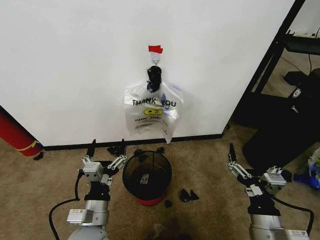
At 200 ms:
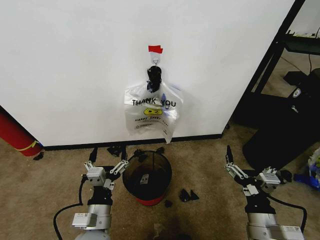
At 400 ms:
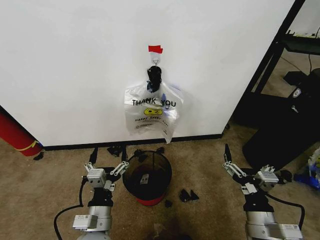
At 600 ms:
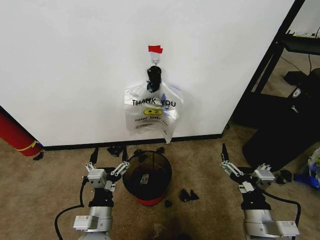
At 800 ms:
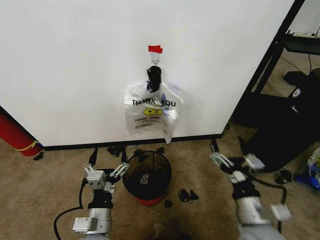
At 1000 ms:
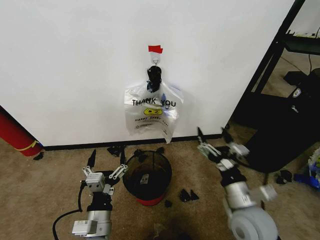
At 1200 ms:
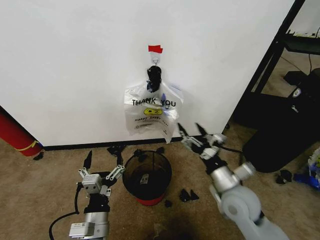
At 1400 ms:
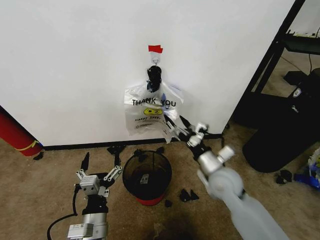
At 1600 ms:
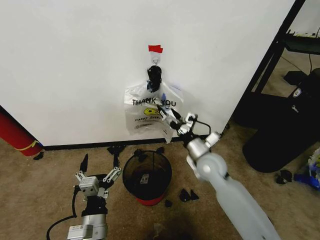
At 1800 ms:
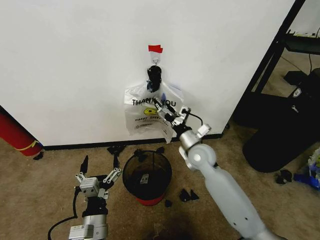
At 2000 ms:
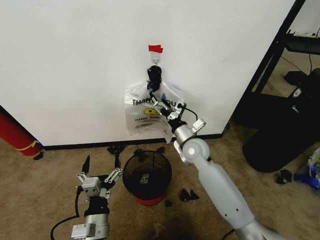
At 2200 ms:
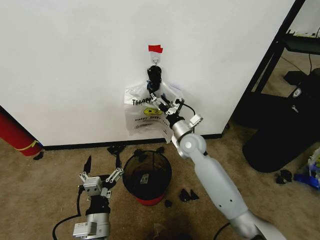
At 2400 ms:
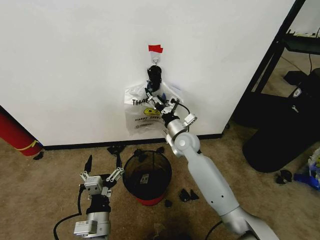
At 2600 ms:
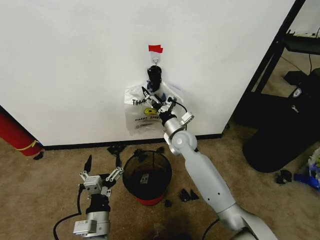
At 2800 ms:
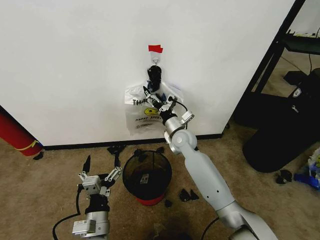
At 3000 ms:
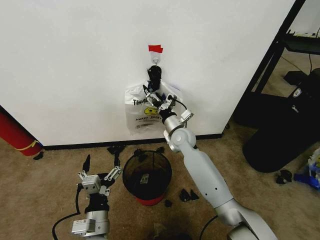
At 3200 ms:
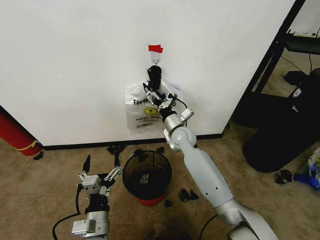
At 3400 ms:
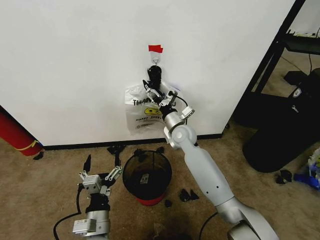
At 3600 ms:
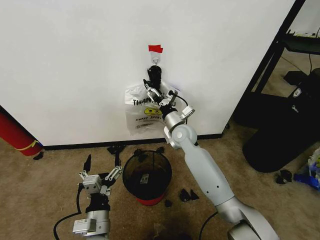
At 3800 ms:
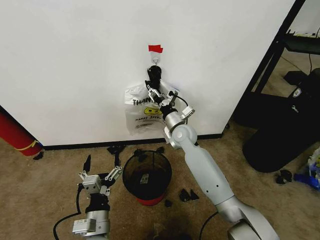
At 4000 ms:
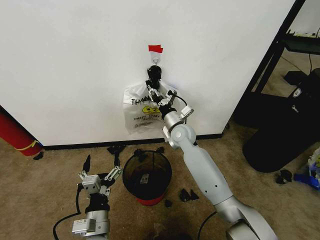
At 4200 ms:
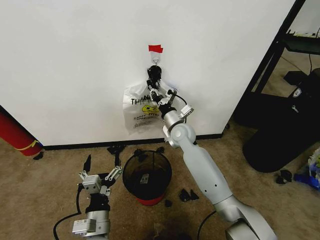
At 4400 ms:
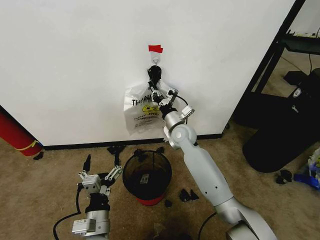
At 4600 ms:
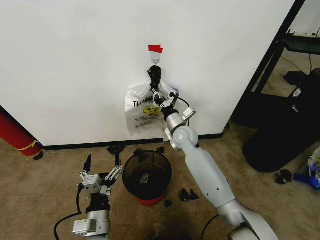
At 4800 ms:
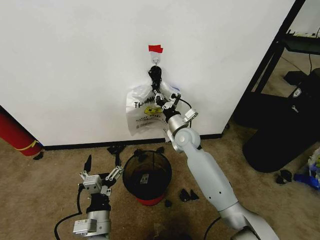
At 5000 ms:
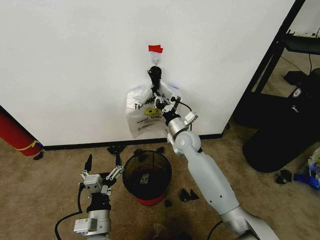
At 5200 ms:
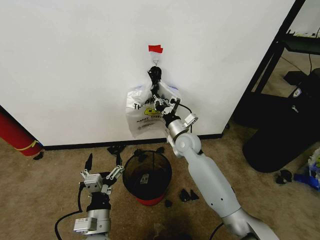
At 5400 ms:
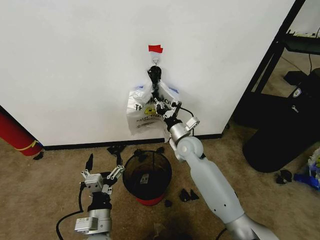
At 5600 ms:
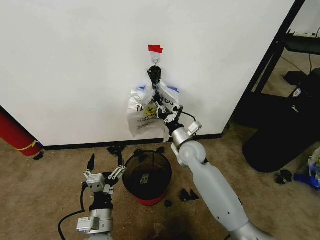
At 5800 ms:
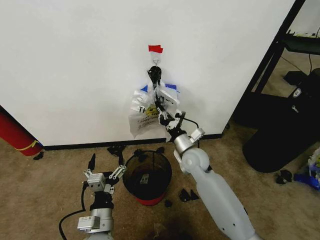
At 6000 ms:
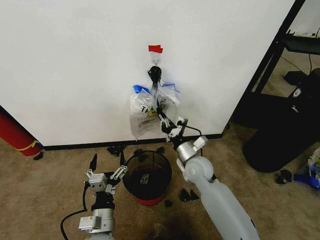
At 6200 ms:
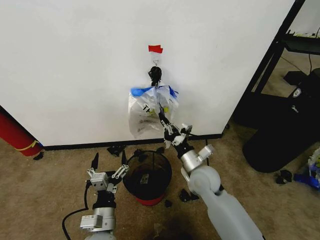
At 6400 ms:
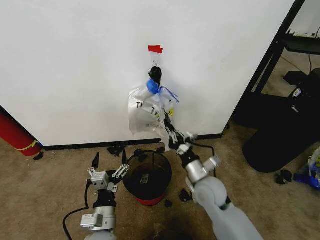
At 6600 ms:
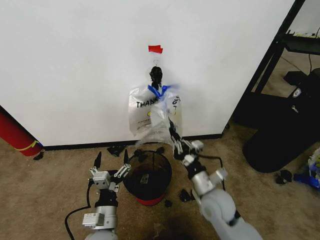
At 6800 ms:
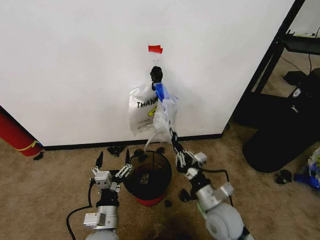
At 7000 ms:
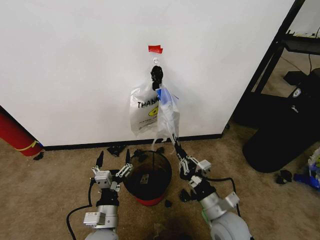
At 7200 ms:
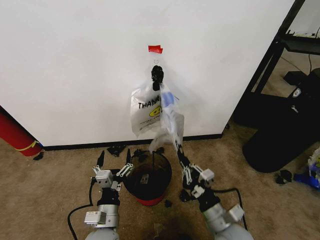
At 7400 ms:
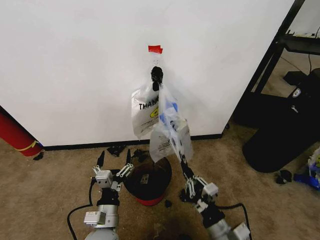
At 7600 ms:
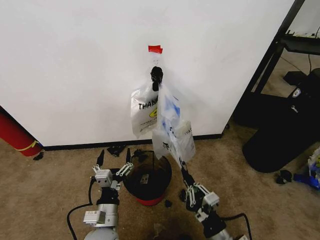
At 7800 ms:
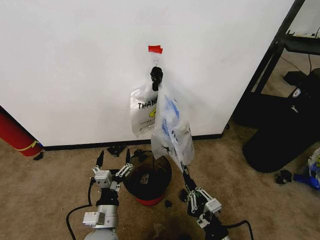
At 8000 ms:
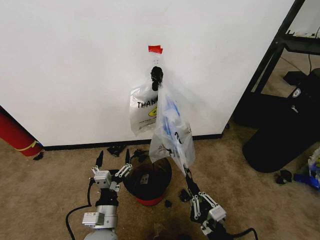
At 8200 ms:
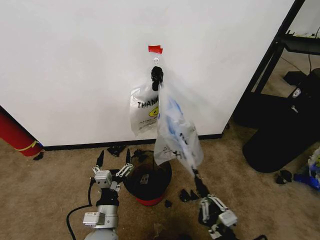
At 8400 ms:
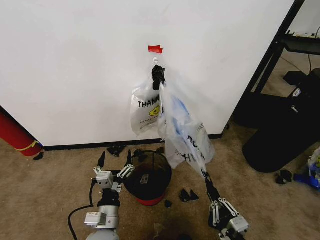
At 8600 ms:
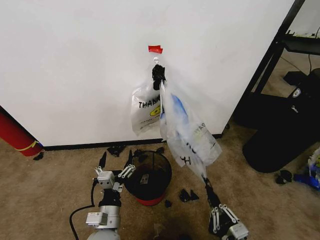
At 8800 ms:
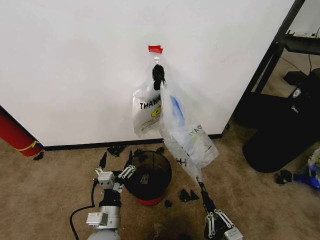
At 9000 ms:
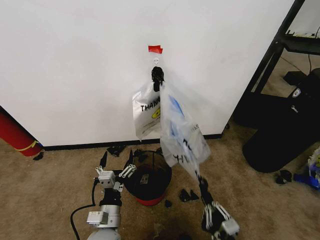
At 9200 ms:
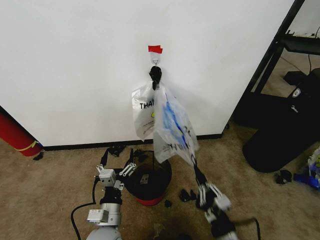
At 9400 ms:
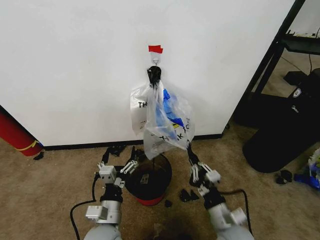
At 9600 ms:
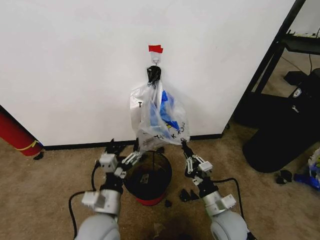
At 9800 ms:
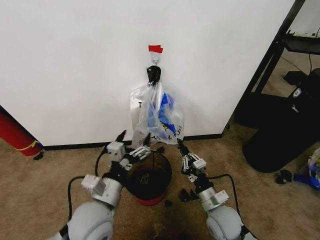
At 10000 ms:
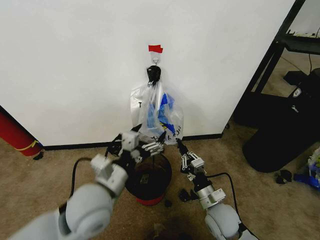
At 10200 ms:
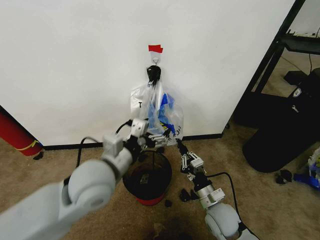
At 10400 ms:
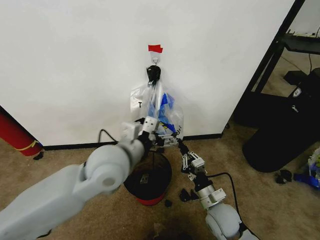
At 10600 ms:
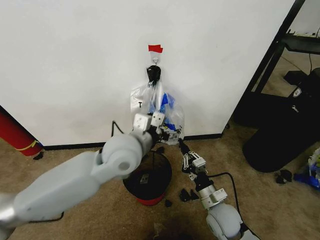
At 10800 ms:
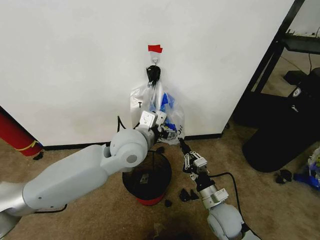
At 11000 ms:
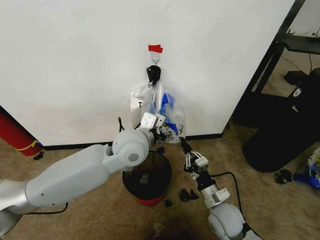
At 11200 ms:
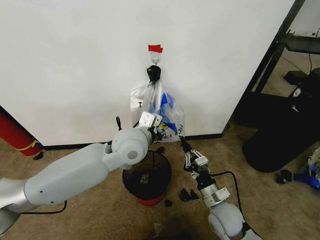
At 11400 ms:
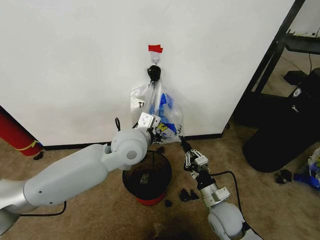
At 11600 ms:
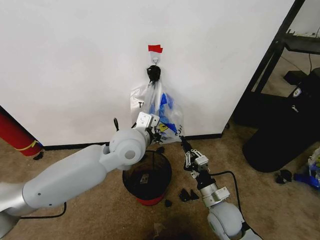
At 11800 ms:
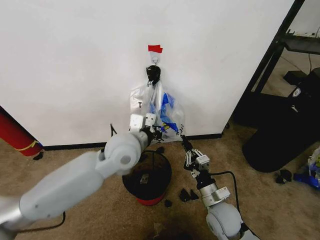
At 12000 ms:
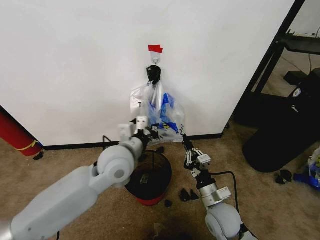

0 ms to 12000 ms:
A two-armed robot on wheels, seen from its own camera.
Task of the whole recording: Pick up the garbage bag from the wall and place it over the trash bin.
1600 ms to 3000 ms: The right gripper goes roughly 15 cm forward and to the left.
3000 ms to 4400 ms: The right gripper closes its fingers.
4400 ms to 6000 ms: The right gripper is displaced backward and downward by about 15 cm.
6000 ms to 7600 ms: The right gripper heads backward, covering some 25 cm.
7600 ms to 9000 ms: The right gripper goes approximately 5 cm backward.
9000 ms to 10400 ms: The left gripper heads upward and forward, covering some 25 cm, while the right gripper shifts roughly 20 cm forward.
10400 ms to 12000 ms: The left gripper changes place by approximately 5 cm, and closes up.

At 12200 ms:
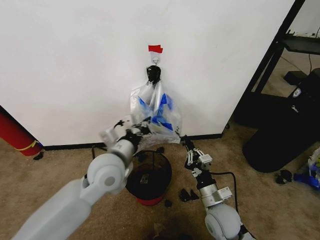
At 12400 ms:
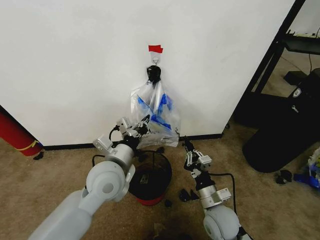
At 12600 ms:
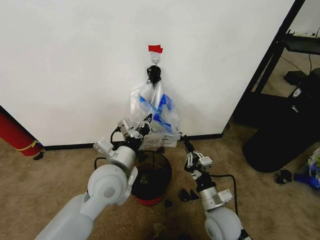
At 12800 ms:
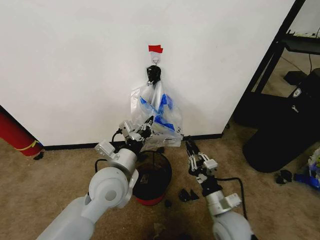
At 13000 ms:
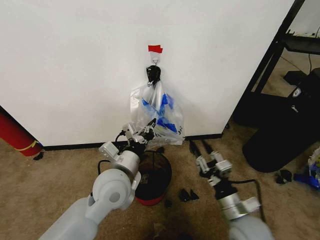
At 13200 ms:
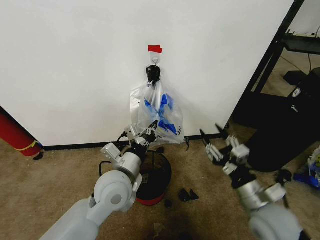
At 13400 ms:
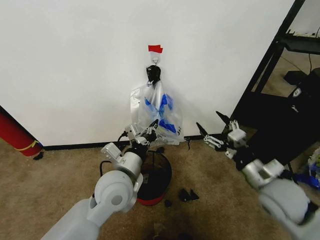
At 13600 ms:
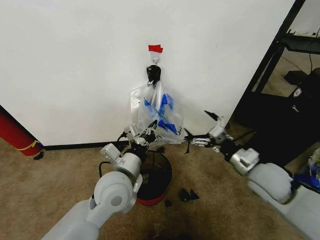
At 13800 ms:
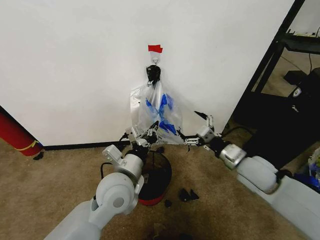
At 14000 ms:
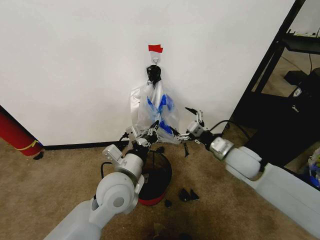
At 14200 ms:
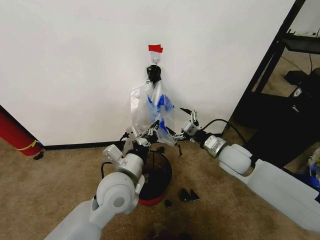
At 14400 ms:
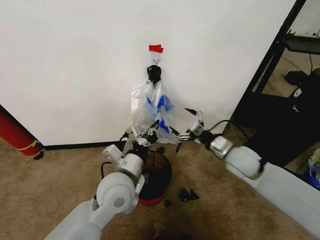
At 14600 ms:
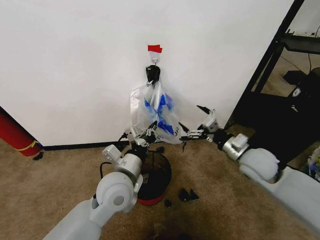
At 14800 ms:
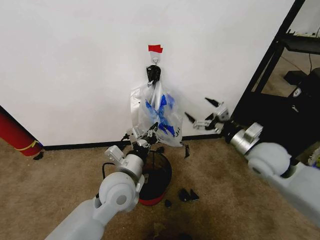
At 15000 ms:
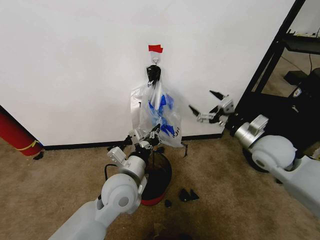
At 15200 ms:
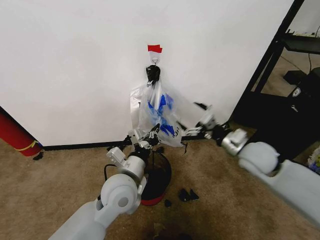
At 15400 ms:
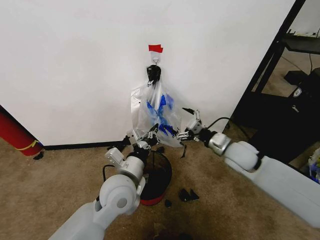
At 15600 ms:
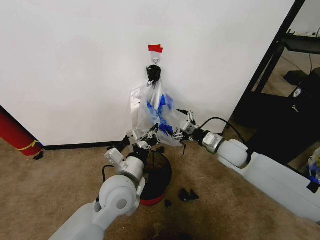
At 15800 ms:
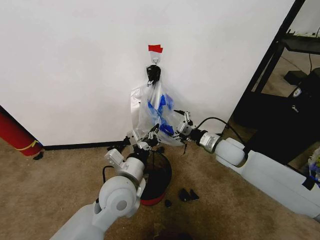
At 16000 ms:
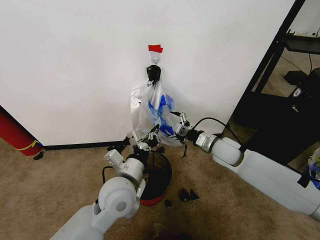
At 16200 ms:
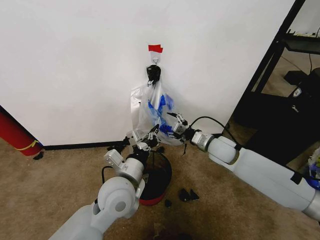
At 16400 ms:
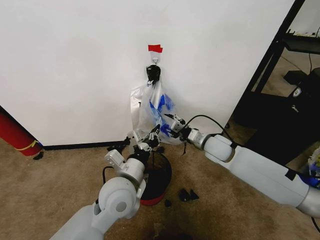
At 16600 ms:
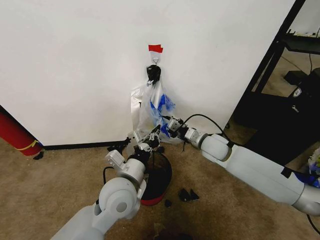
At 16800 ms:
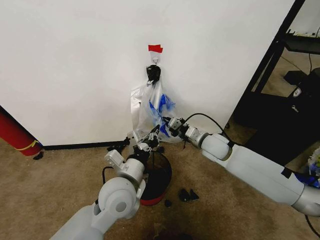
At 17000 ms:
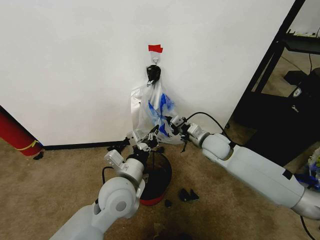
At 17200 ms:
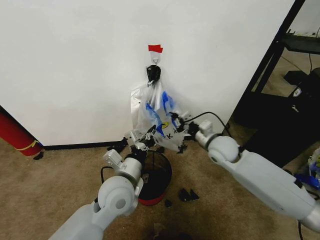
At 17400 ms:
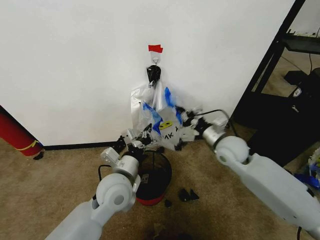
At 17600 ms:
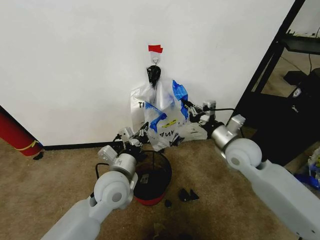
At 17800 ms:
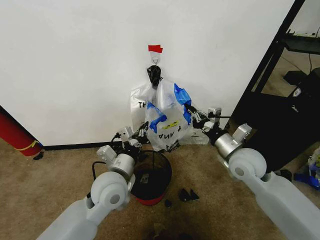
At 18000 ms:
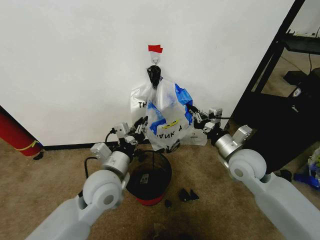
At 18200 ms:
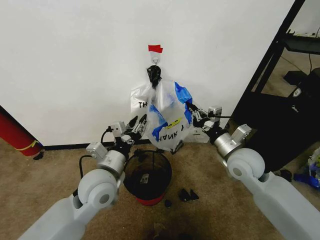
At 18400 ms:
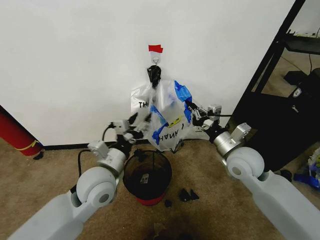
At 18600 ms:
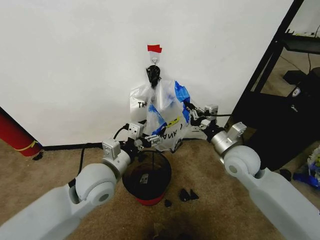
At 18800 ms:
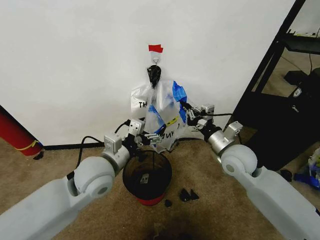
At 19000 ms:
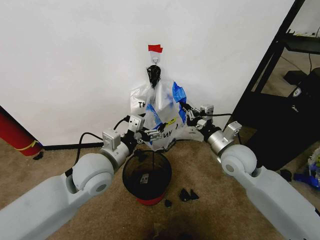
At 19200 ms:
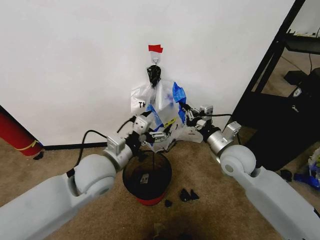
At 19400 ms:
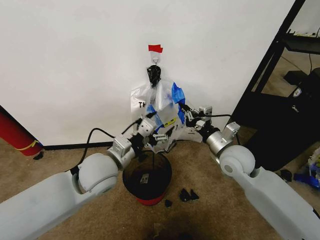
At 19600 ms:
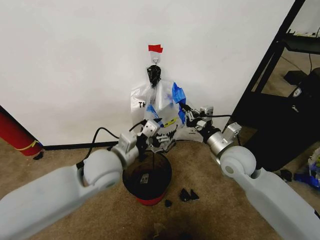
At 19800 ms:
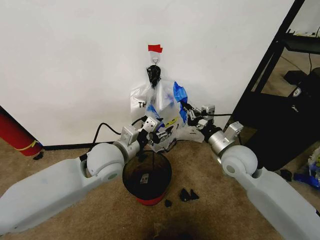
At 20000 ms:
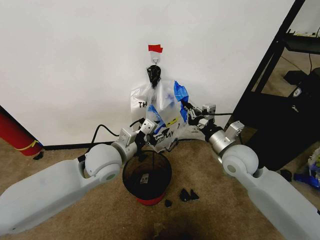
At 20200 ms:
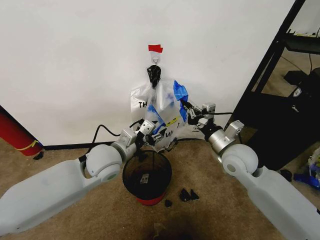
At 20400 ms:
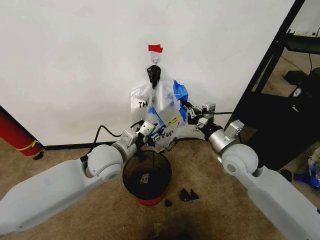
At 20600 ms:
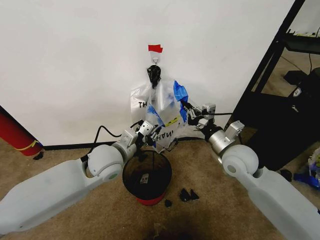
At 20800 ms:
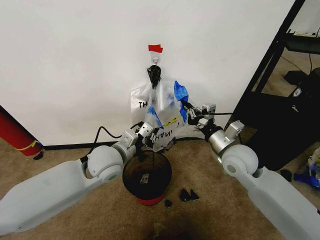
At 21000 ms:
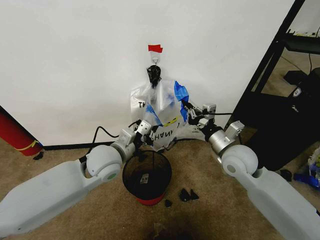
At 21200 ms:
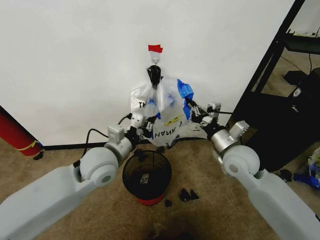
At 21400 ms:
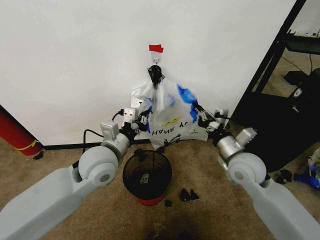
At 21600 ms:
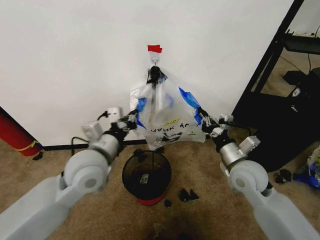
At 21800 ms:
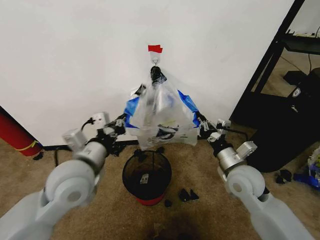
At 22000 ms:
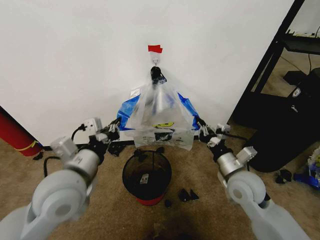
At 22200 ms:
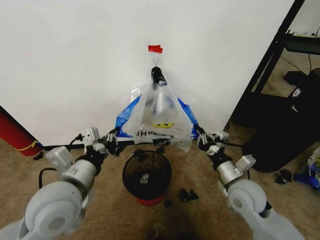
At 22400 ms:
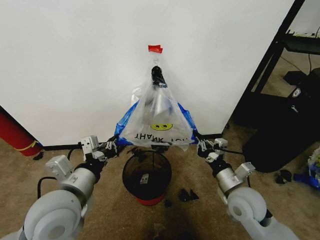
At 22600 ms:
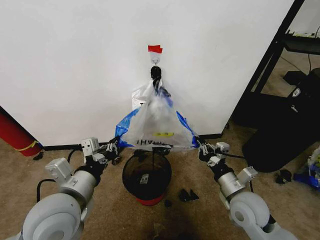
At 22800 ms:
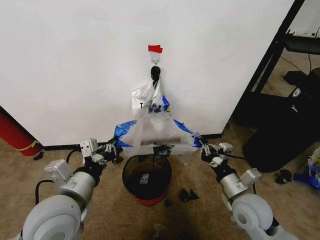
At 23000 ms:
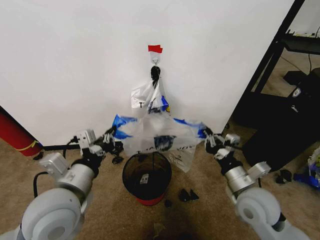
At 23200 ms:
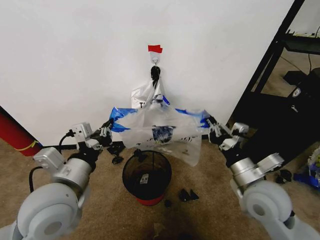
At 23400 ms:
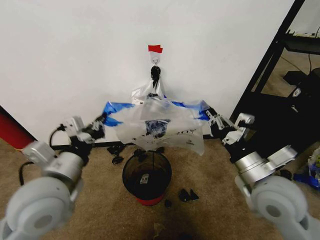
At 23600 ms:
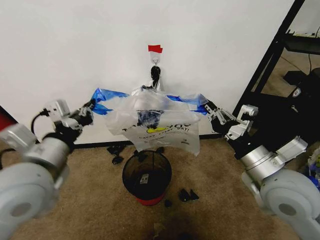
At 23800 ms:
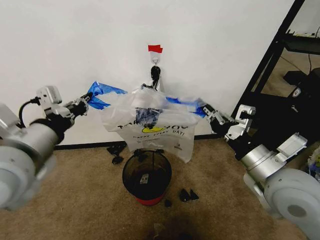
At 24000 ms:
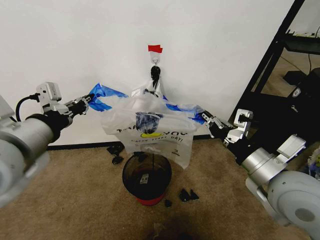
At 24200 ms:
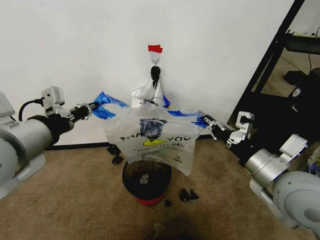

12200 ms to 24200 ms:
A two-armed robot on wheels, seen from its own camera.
Task of the whole recording: Pick up the garbage bag from the wall and place it over the trash bin.
12200 ms to 13800 ms: The right gripper travels upward, to the right and forward by about 20 cm, and opens its fingers; the left gripper changes place by some 5 cm.
15200 ms to 16600 ms: The right gripper shifts approximately 15 cm to the left, forward and downward, and closes up.
16600 ms to 18200 ms: The right gripper goes about 10 cm backward and to the right, while the left gripper shifts about 5 cm to the left, and opens.
18200 ms to 19800 ms: The left gripper travels forward by some 5 cm, and opens, then closes again.
19800 ms to 21200 ms: The left gripper closes up.
21200 ms to 22600 ms: The right gripper shifts about 15 cm backward and downward. Meanwhile the left gripper moves backward, some 15 cm.
22600 ms to 24200 ms: Both grippers move upward, about 15 cm.
